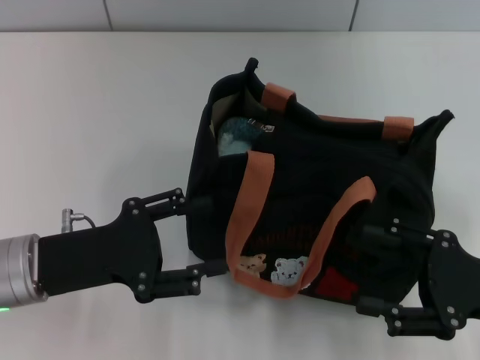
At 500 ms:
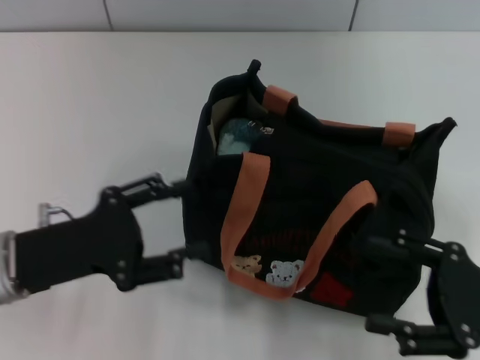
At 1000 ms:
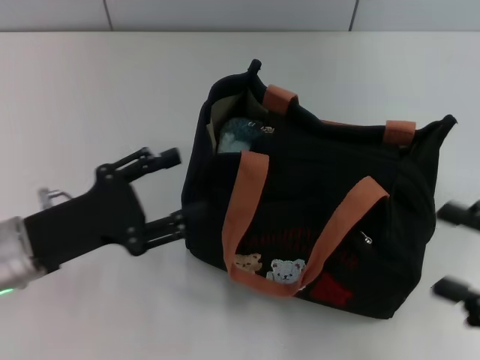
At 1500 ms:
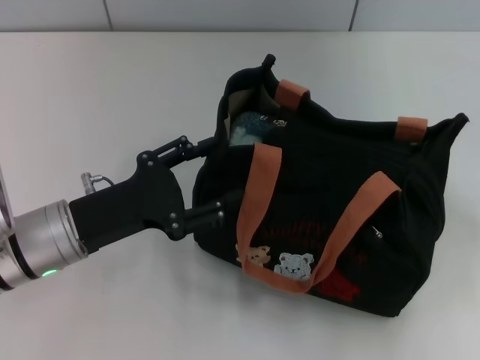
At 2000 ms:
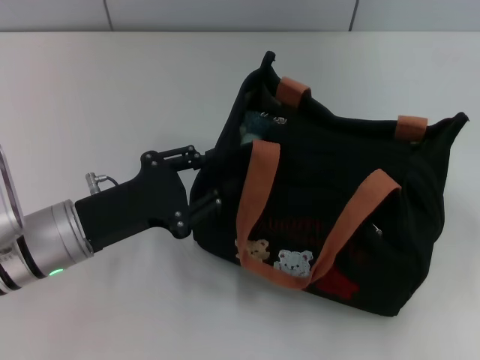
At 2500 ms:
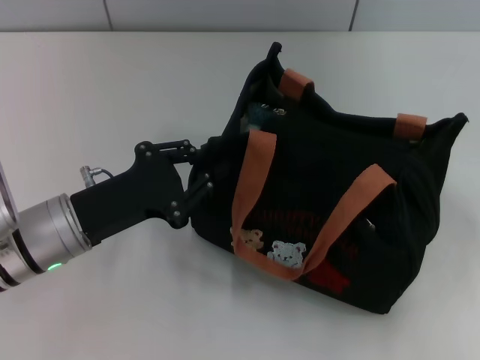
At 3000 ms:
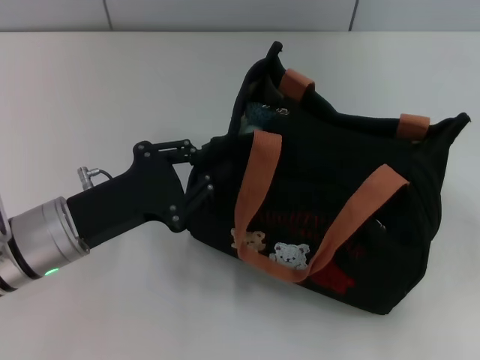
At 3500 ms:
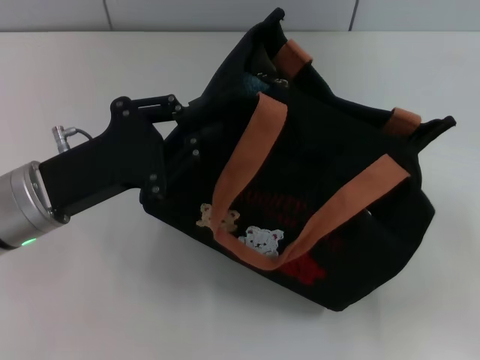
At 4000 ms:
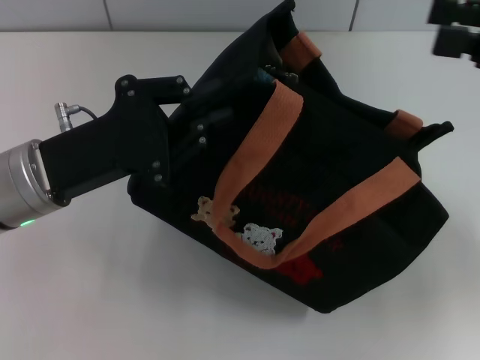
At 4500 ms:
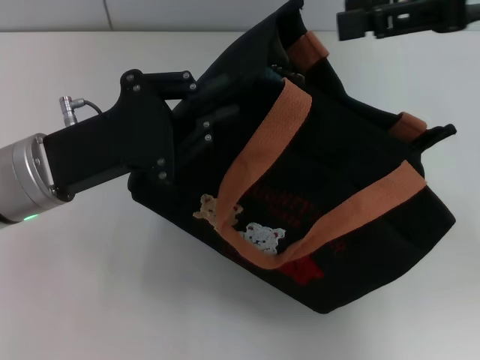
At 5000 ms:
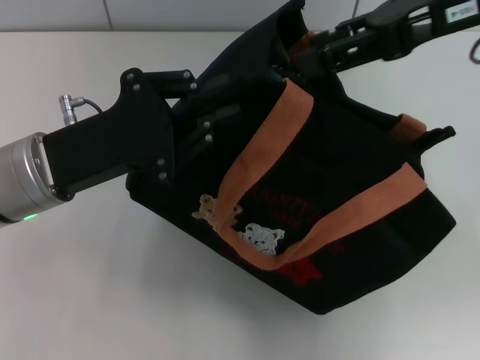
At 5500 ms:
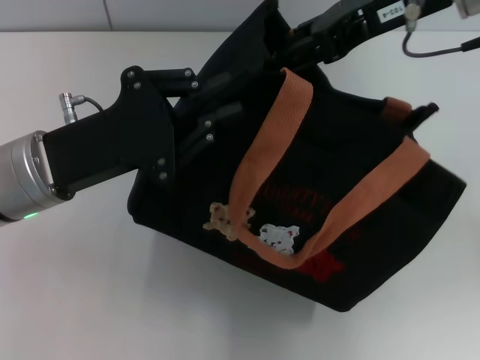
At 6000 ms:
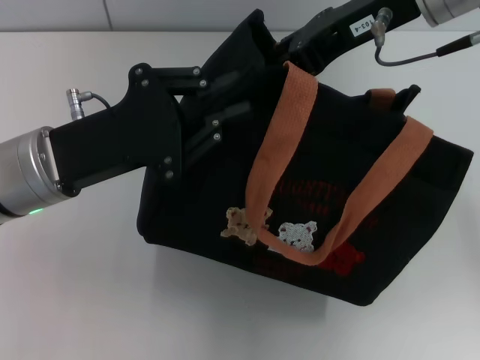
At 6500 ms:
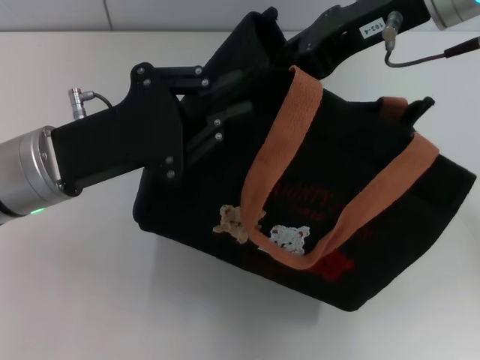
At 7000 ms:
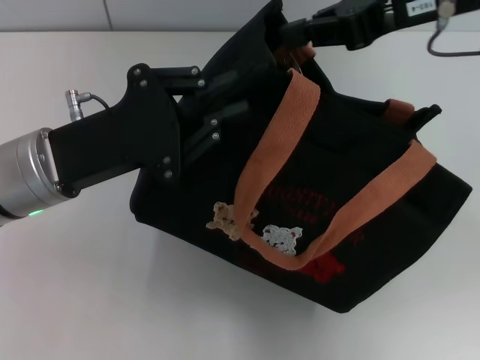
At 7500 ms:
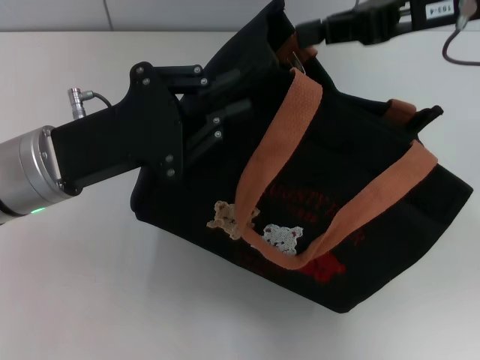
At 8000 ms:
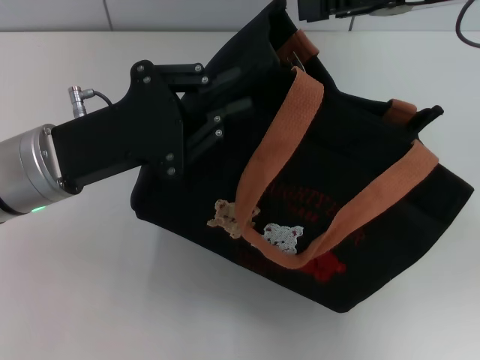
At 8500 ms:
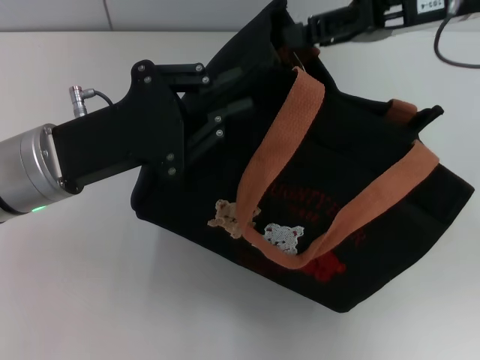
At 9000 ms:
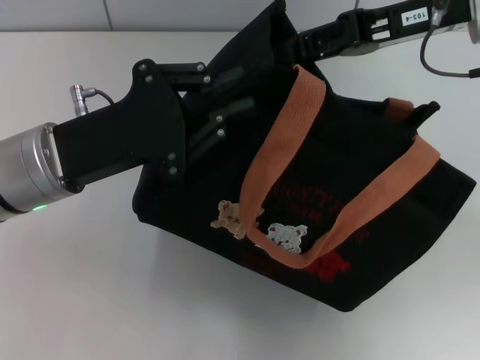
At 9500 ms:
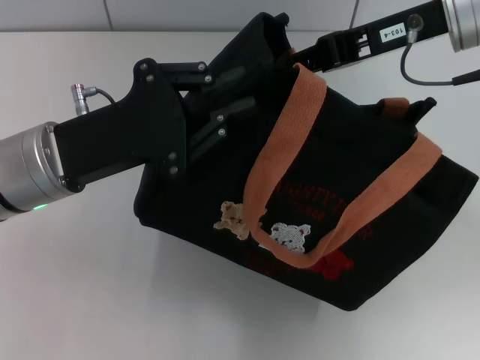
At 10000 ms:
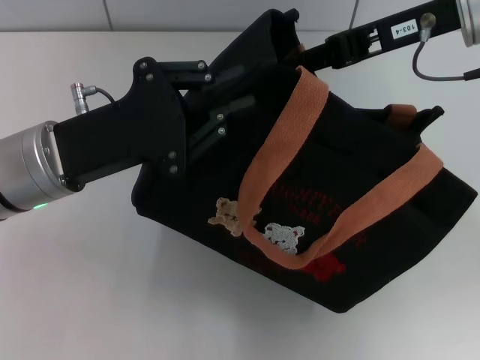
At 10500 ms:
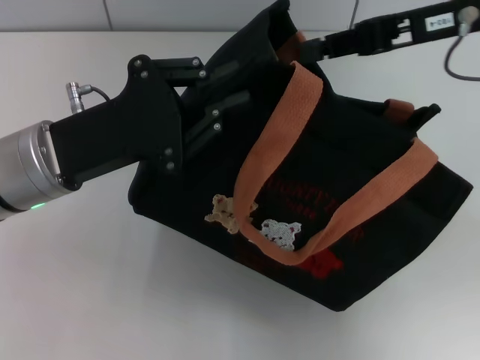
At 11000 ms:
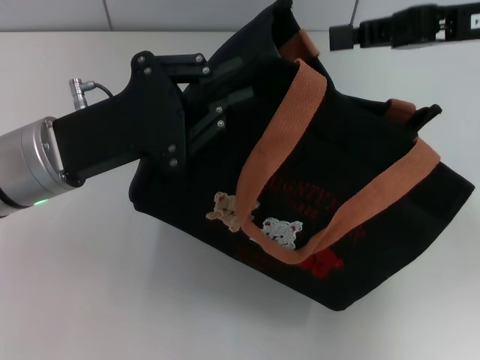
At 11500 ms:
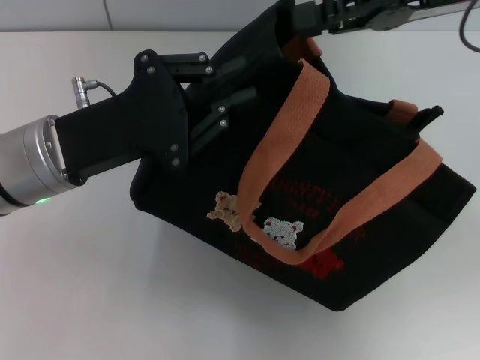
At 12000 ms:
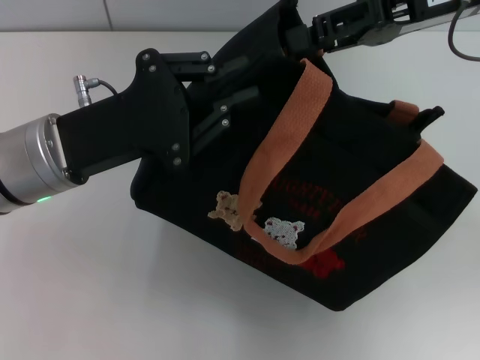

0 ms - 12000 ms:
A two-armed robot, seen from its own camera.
0 ms - 2000 ms: The right gripper goes some 5 cm to the right.
2000 ms - 4000 ms: The right gripper heads upward and forward, covering roughly 20 cm, while the left gripper is displaced upward by approximately 5 cm, and closes its fingers.
4000 ms - 6000 ms: The right gripper heads to the left, covering roughly 15 cm.
6000 ms - 8000 ms: The right gripper heads to the right, covering roughly 10 cm, and closes its fingers.
8000 ms - 10000 ms: There are only small adjustments of the grippers.
10000 ms - 12000 ms: The right gripper opens up.

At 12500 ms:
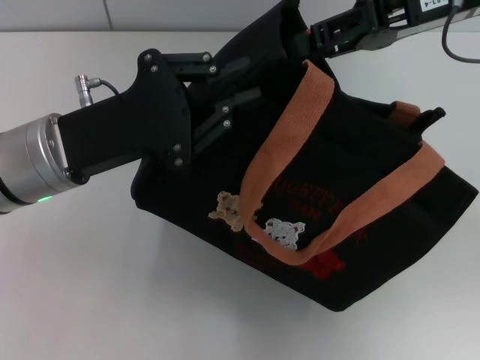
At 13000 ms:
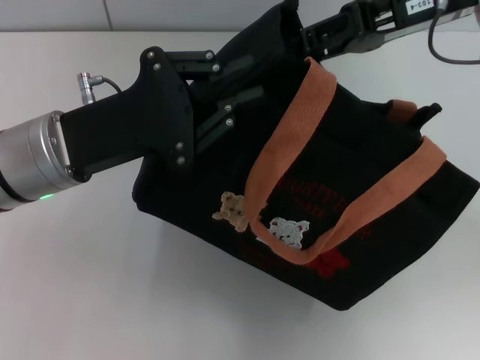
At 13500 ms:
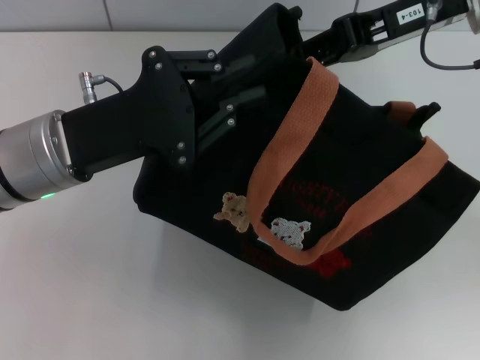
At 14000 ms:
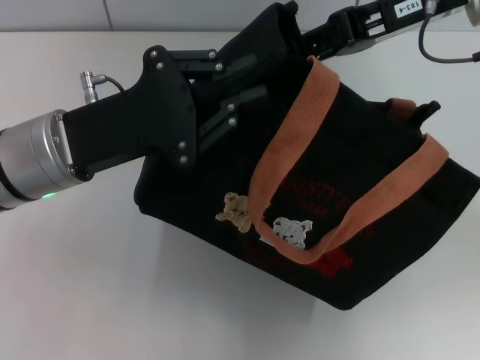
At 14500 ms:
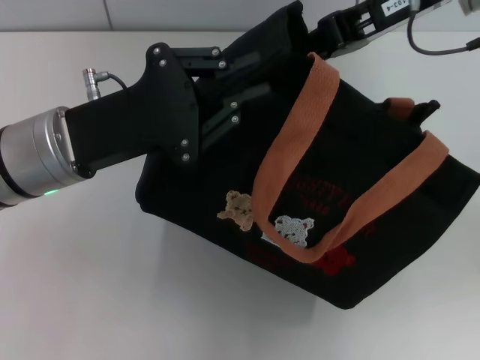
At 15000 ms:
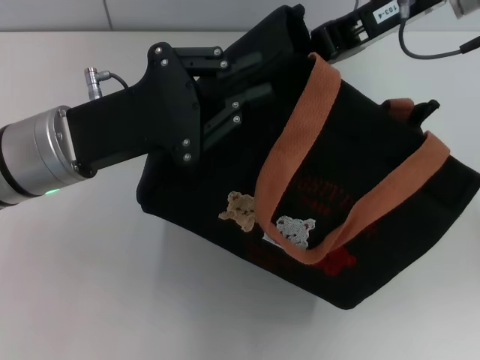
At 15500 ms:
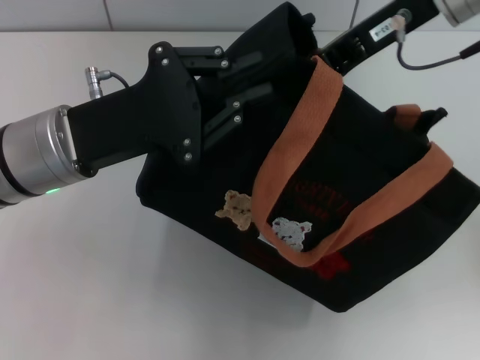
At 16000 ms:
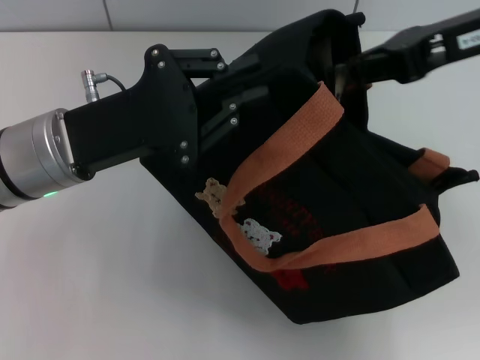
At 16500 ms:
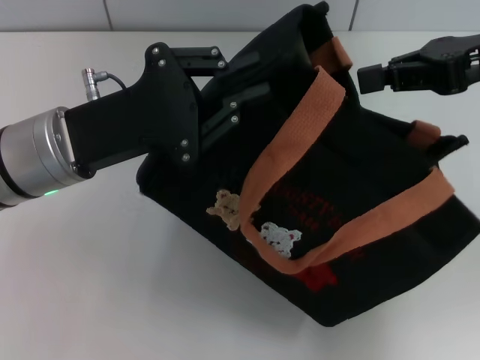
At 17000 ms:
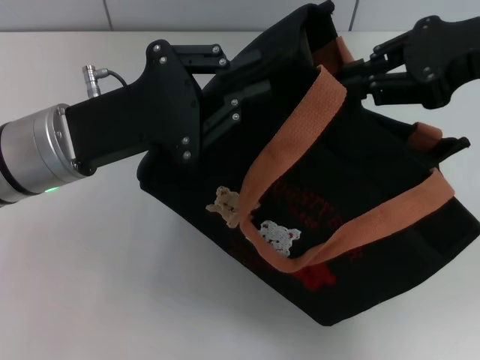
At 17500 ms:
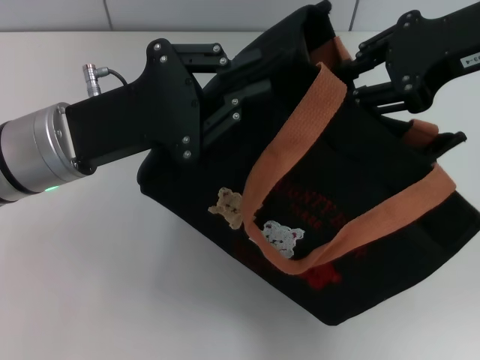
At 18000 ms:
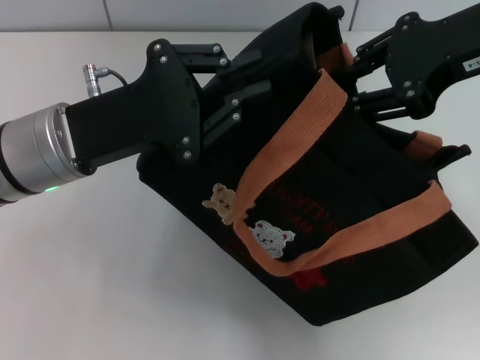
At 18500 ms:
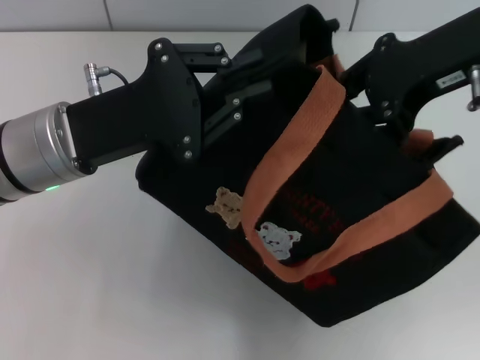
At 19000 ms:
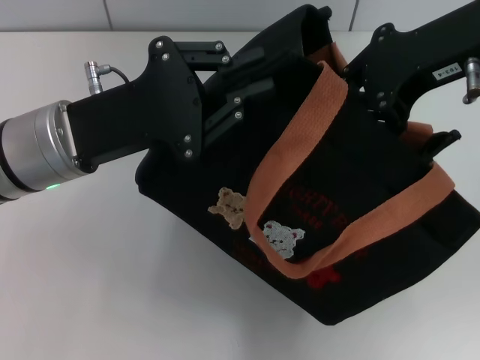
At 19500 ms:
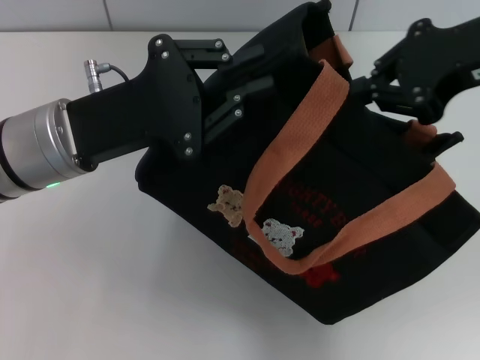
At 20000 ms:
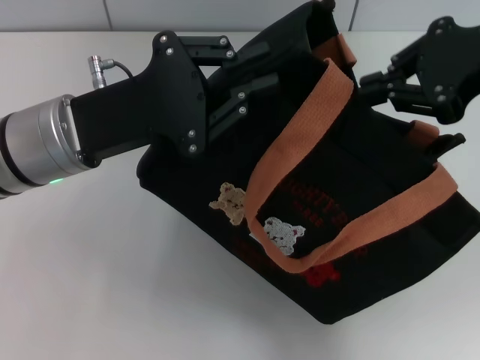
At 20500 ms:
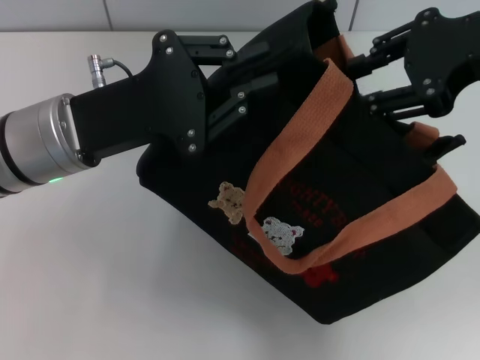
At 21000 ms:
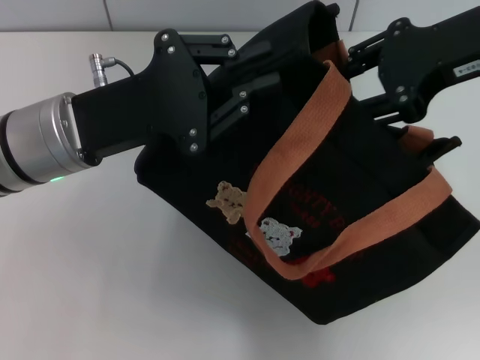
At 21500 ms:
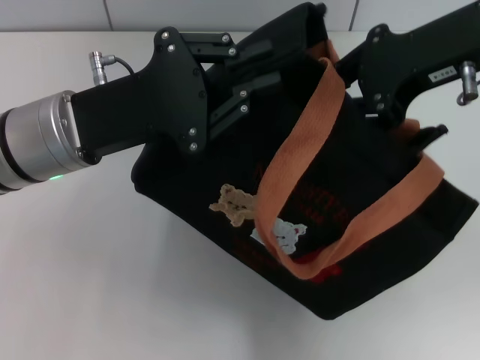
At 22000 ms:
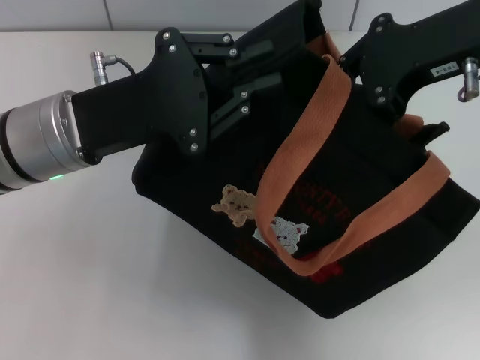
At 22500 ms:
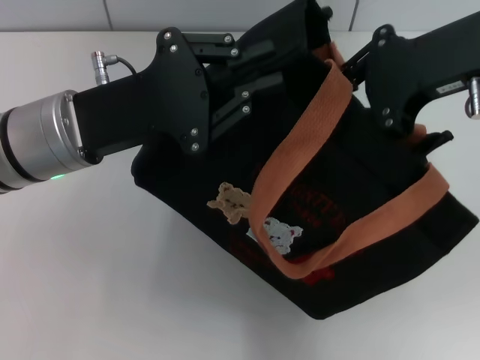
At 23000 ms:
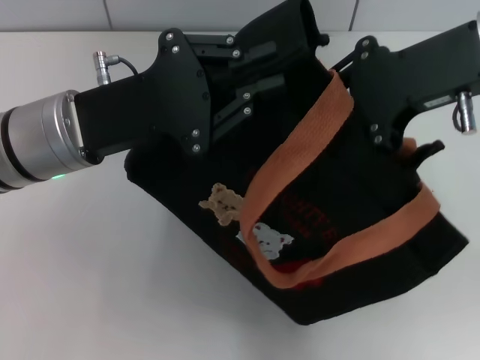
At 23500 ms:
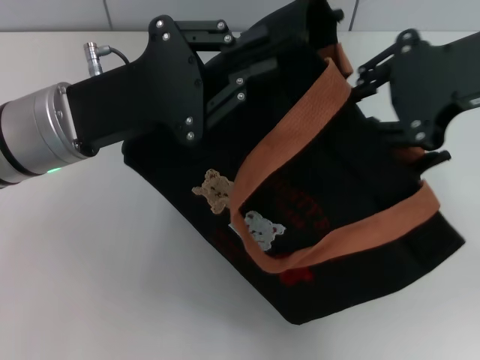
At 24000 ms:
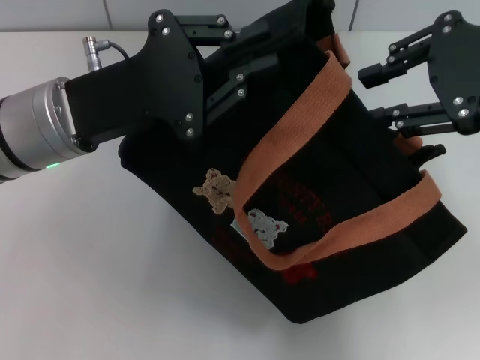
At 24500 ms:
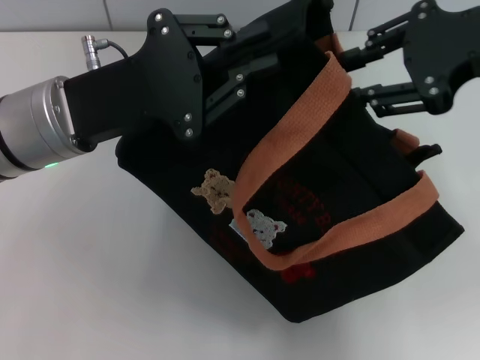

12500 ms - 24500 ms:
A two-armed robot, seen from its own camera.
12500 ms - 14500 ms: The grippers stay close to where they were, moving slightly.
14500 ms - 16500 ms: The right gripper heads to the right and backward, covering roughly 10 cm, and closes its fingers.
16500 ms - 18500 ms: The right gripper moves to the left, approximately 5 cm, and opens.
18500 ms - 20500 ms: The right gripper closes and opens again.
20500 ms - 22500 ms: The right gripper closes.
22500 ms - 24500 ms: The right gripper opens its fingers.

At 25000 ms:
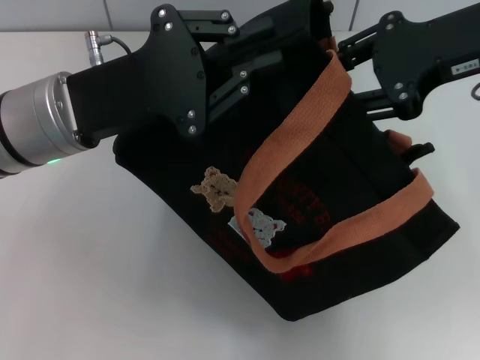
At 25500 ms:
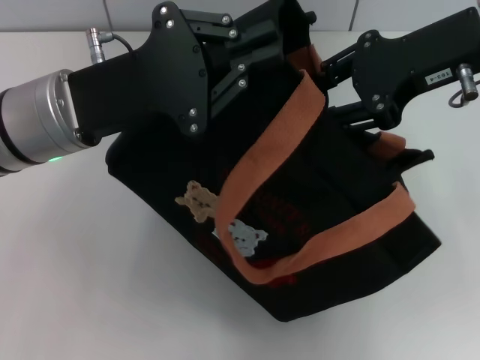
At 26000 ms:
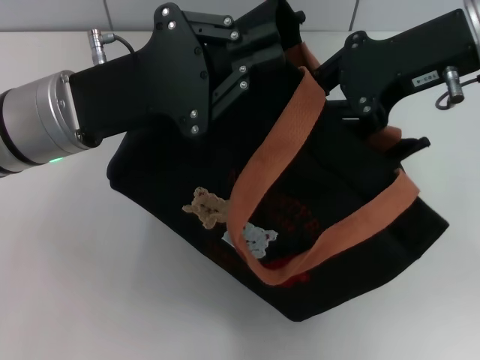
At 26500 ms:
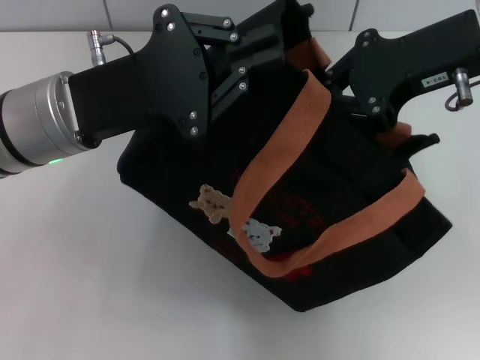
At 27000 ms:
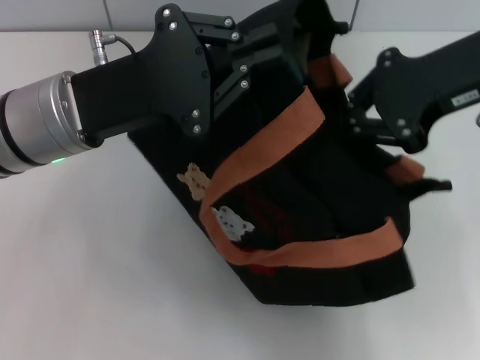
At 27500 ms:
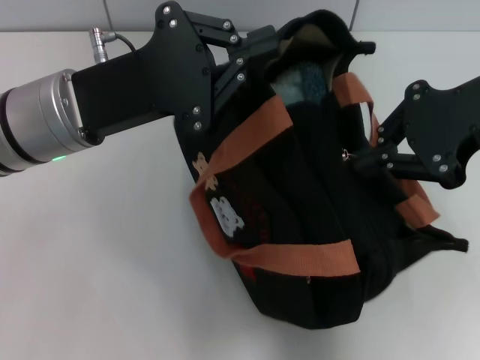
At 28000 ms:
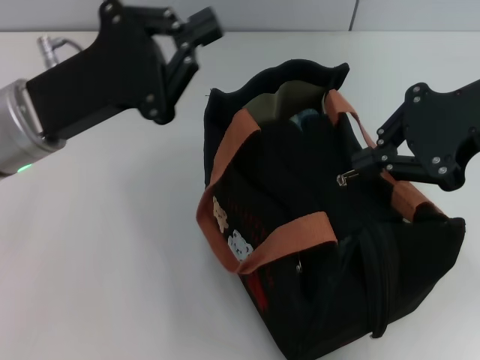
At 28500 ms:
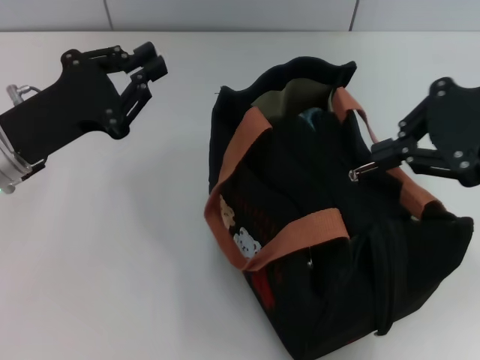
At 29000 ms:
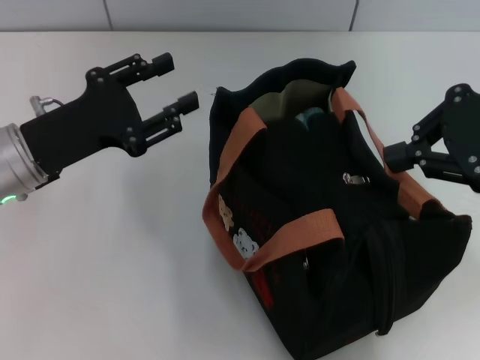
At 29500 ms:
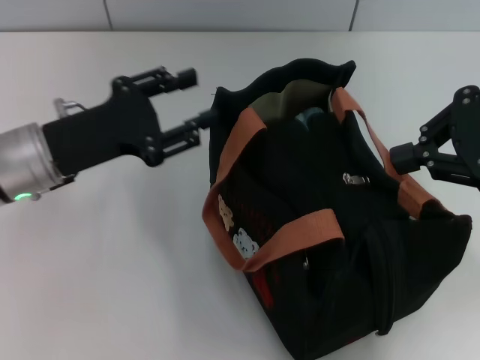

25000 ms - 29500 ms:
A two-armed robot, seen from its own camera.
25000 ms - 27000 ms: The right gripper closes up.
27000 ms - 29500 ms: The right gripper goes approximately 5 cm to the right, while the left gripper travels downward and to the left by about 5 cm, and opens its fingers.
